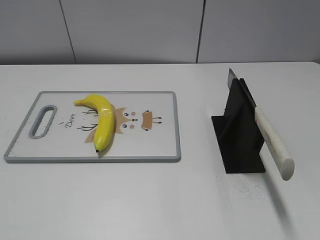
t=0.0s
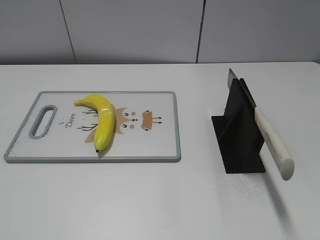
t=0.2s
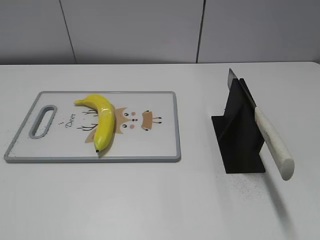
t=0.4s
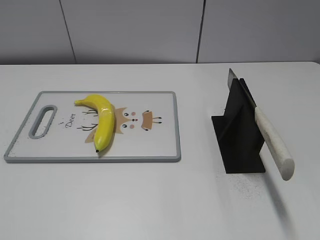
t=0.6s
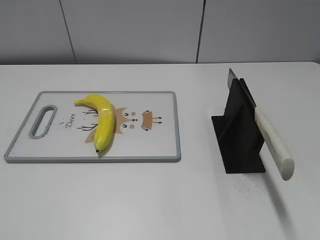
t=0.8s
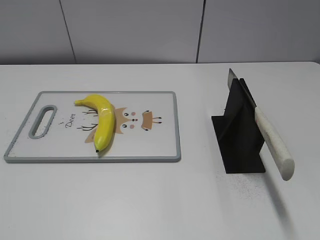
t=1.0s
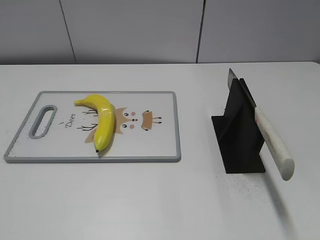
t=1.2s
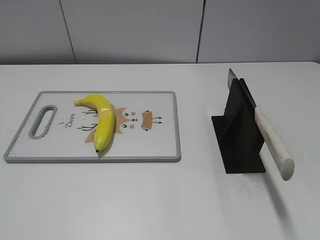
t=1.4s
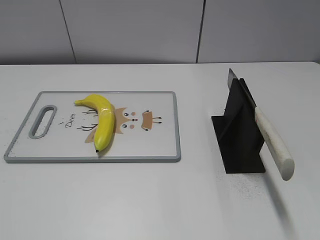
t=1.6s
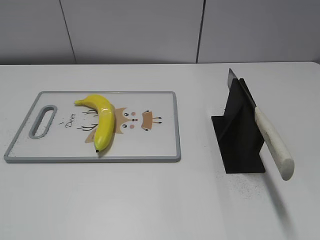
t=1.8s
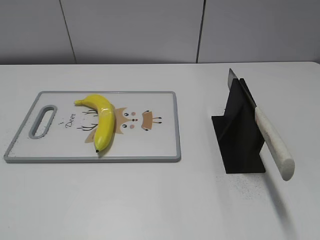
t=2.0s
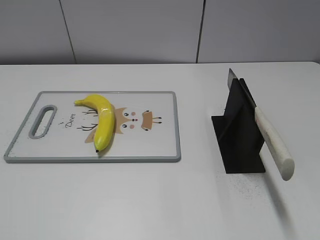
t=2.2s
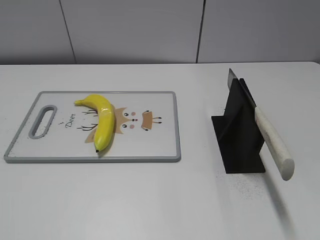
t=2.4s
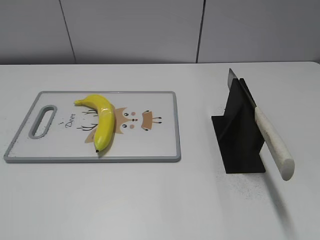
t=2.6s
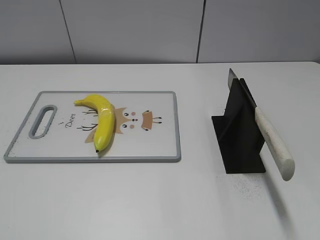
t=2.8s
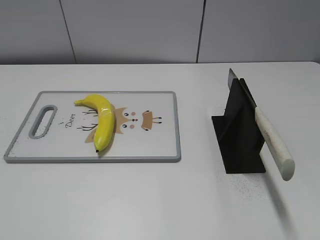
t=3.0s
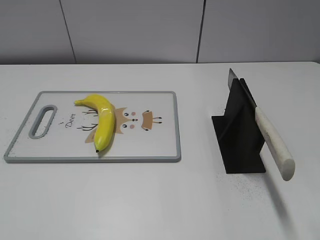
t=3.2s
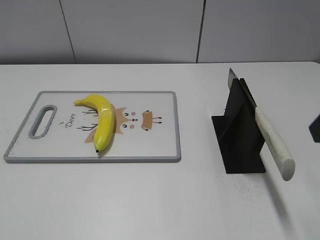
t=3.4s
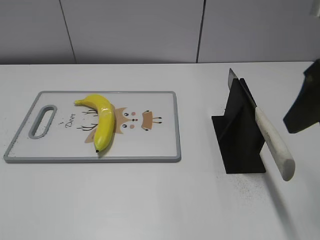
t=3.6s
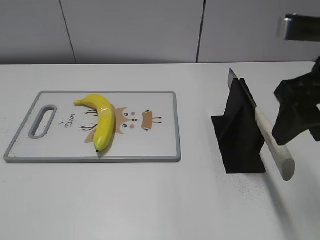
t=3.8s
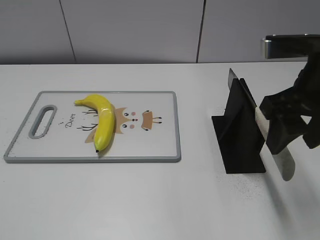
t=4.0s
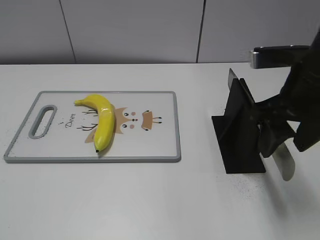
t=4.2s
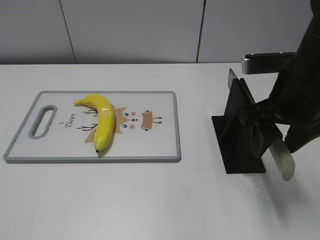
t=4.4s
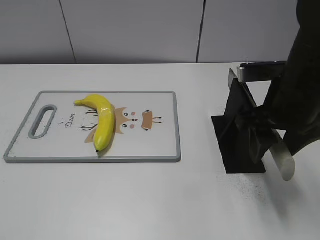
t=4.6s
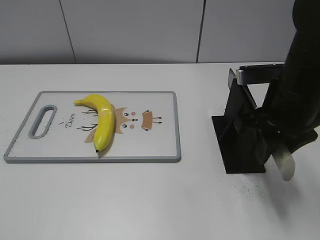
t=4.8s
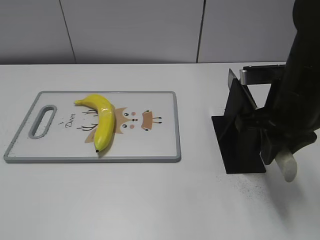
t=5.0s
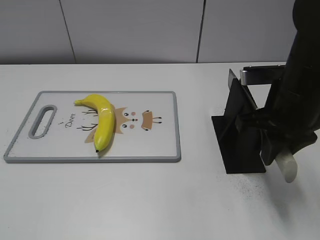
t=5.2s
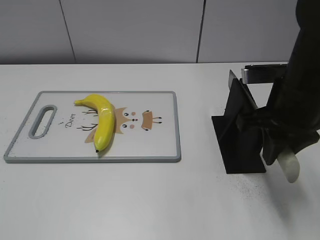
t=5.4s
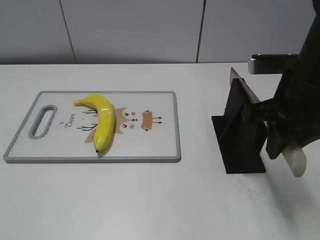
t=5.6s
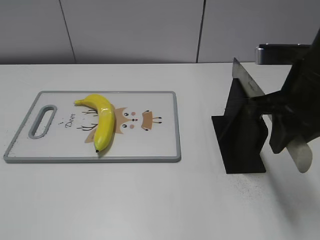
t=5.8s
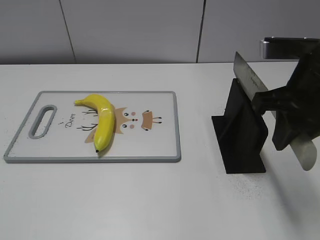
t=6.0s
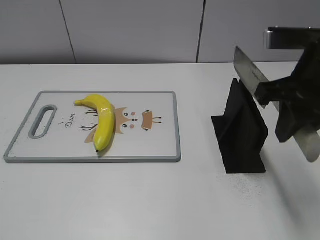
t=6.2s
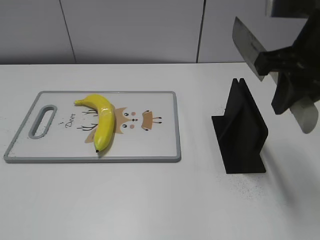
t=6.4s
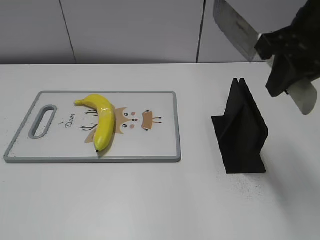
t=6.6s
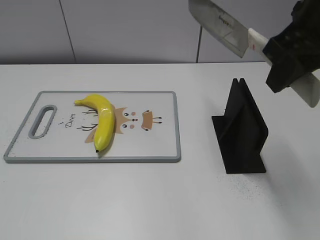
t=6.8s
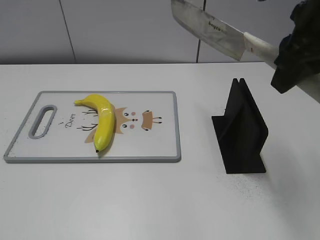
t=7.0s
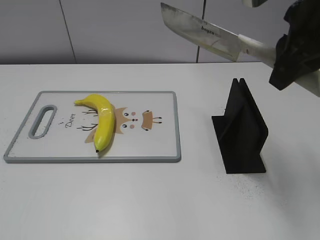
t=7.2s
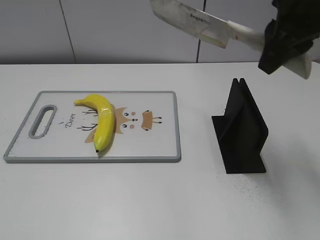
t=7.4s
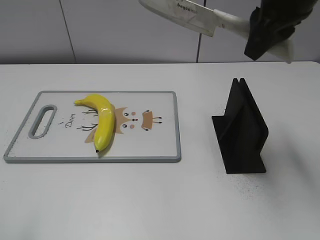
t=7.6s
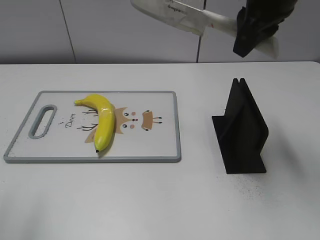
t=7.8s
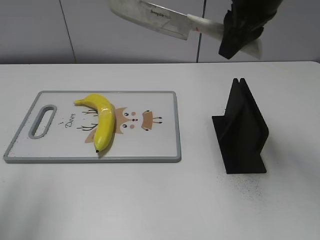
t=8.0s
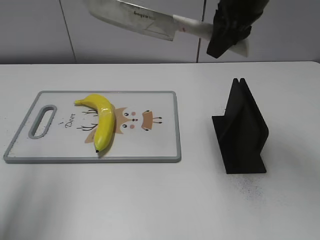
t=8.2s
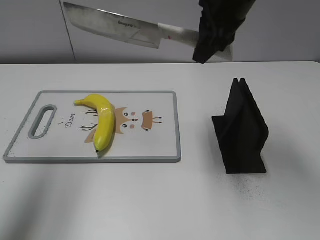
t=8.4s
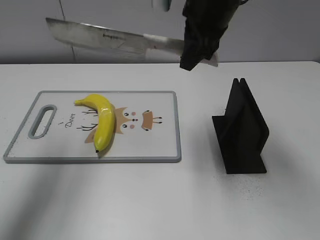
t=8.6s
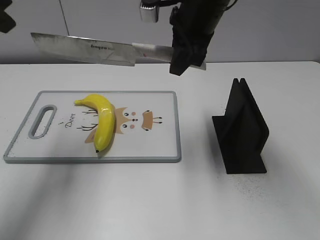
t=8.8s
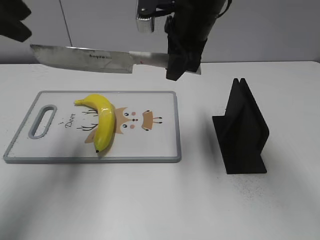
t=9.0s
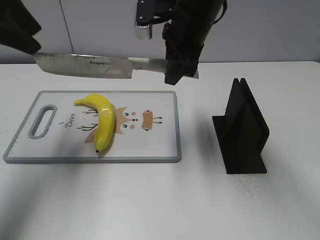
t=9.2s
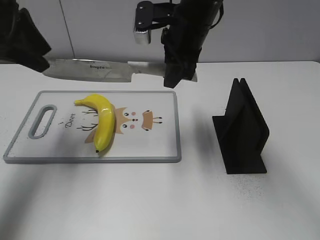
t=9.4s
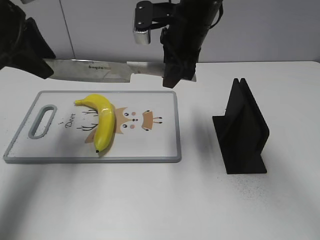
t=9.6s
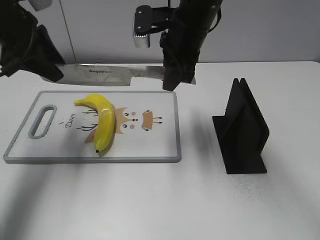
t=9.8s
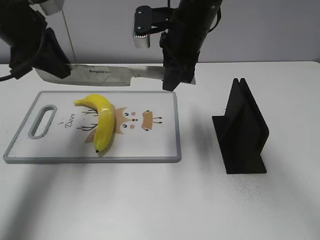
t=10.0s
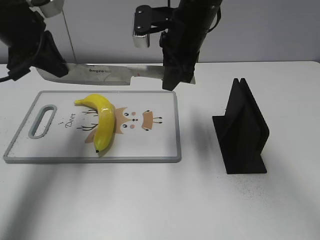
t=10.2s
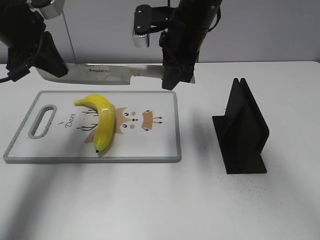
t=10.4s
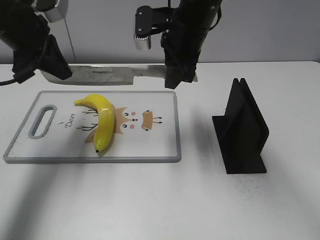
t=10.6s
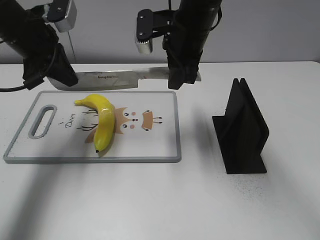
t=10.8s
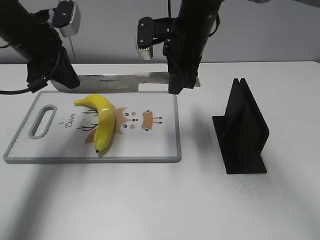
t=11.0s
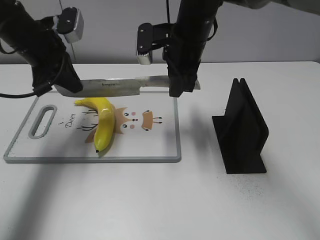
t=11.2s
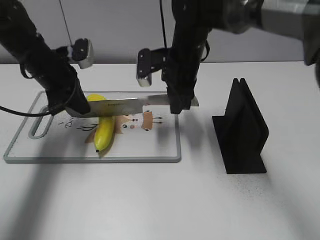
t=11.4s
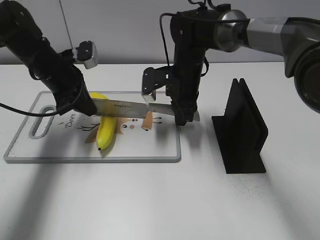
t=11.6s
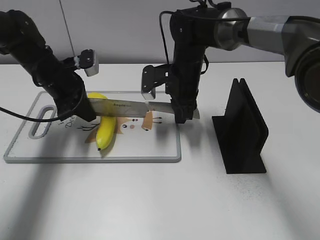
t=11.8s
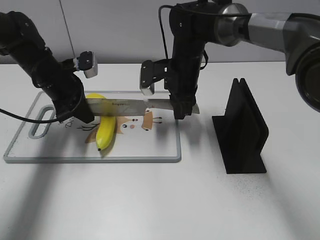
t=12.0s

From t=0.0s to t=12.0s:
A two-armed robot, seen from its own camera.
Task of the whole recording: cut plastic banana.
Step, from t=0.0s to t=5.8s: Grab the knife handle with your right hand.
From t=3.0s to t=4.4s: The right gripper travels forward, to the left and downward by about 20 cm.
From t=4.4s to t=6.0s: The right gripper closes up.
From t=6.0s to t=7.6s: The right gripper goes some 10 cm forward and upward. The left gripper goes about 10 cm upward and forward.
From t=7.6s to t=9.0s: The right gripper moves to the left, downward and forward, some 15 cm; the left gripper is displaced forward by about 25 cm.
From t=9.0s to t=10.4s: The left gripper heads downward and forward, covering approximately 10 cm, and closes its fingers.
From t=10.4s to t=12.0s: The grippers both shift downward by about 10 cm.

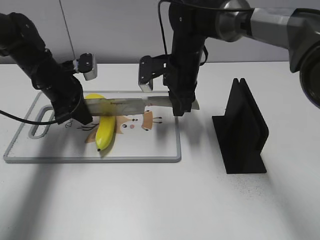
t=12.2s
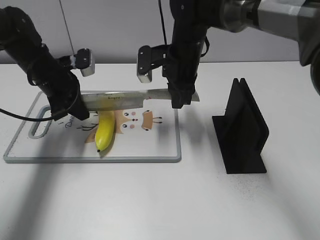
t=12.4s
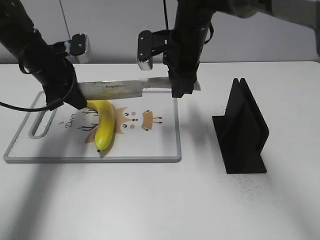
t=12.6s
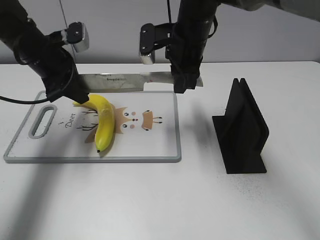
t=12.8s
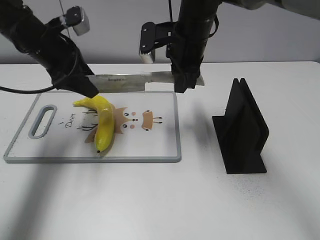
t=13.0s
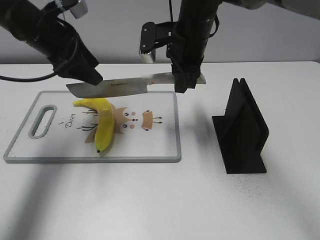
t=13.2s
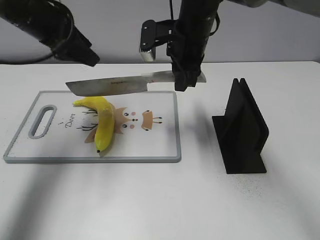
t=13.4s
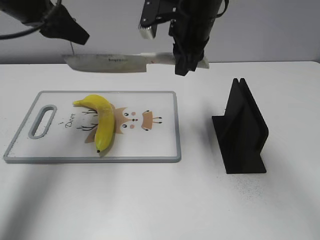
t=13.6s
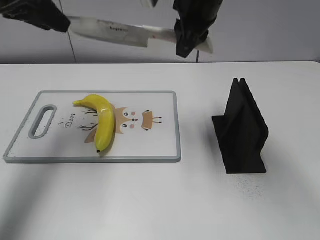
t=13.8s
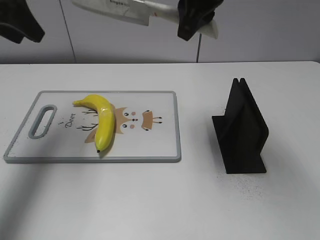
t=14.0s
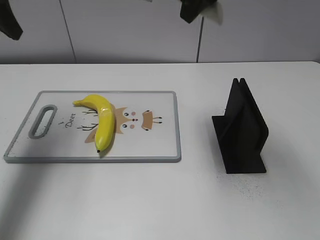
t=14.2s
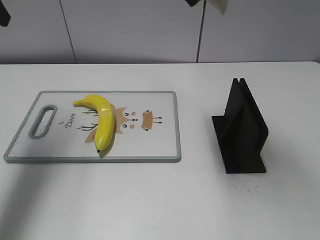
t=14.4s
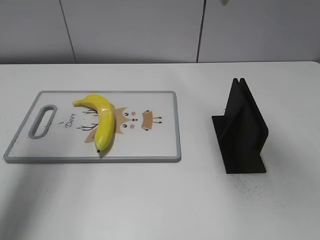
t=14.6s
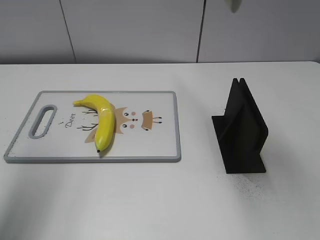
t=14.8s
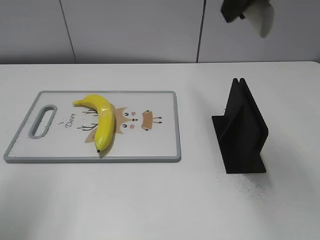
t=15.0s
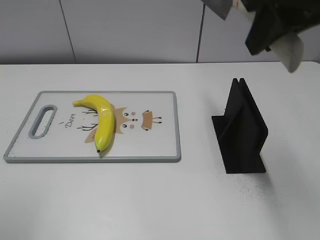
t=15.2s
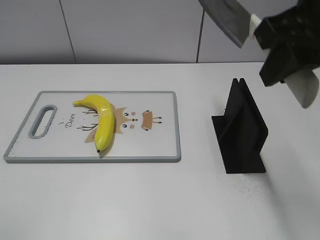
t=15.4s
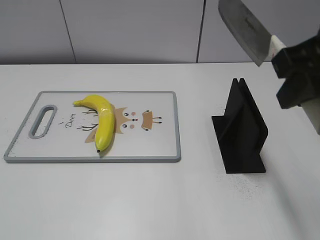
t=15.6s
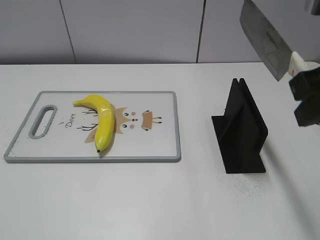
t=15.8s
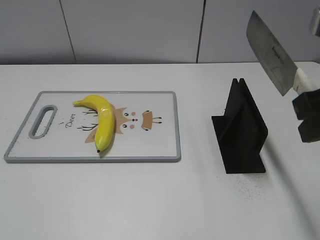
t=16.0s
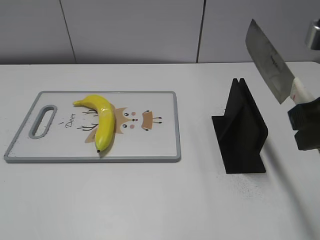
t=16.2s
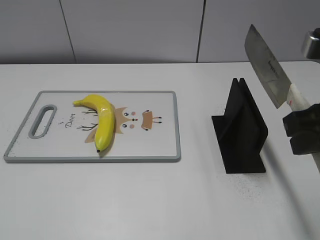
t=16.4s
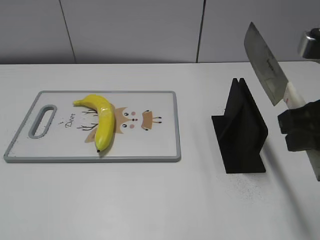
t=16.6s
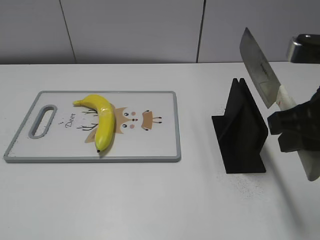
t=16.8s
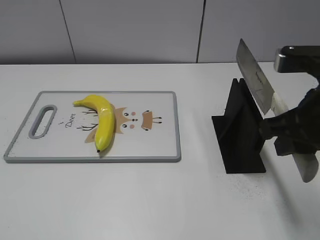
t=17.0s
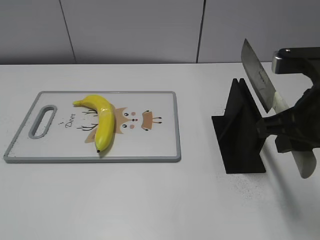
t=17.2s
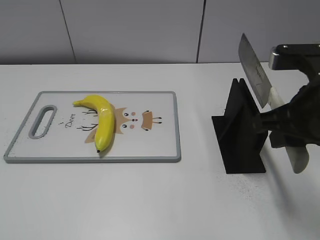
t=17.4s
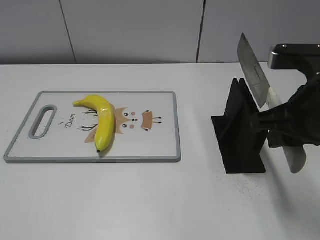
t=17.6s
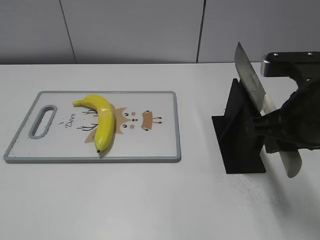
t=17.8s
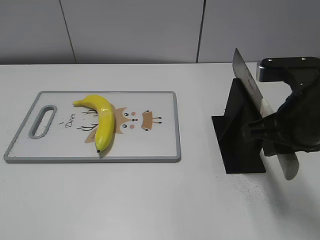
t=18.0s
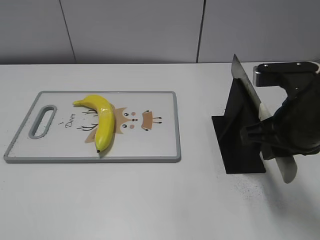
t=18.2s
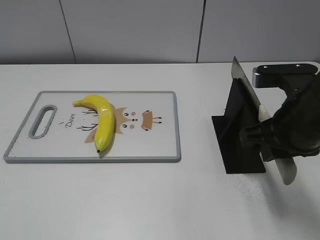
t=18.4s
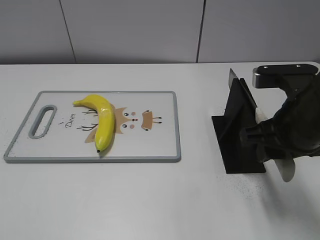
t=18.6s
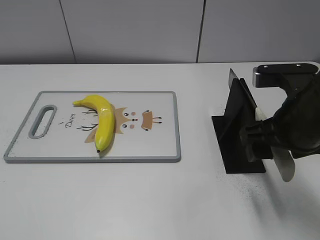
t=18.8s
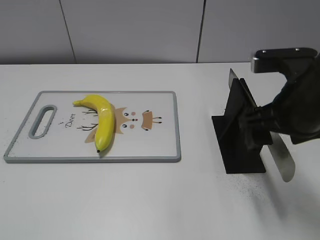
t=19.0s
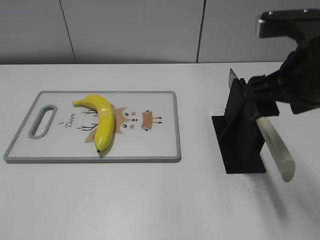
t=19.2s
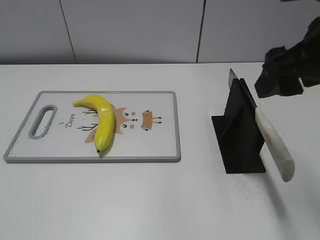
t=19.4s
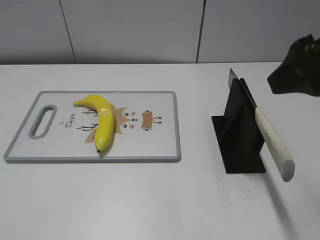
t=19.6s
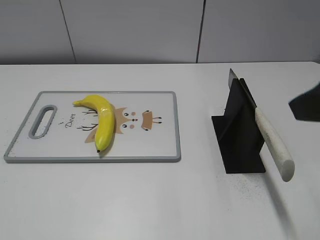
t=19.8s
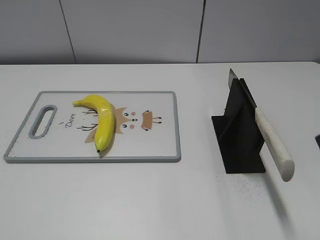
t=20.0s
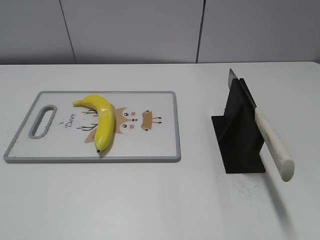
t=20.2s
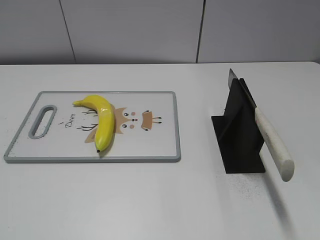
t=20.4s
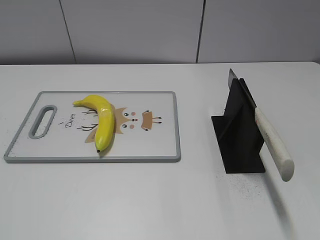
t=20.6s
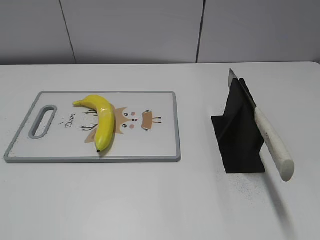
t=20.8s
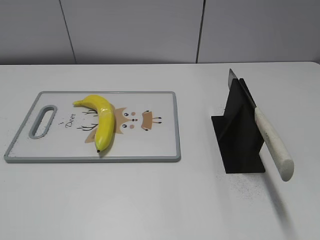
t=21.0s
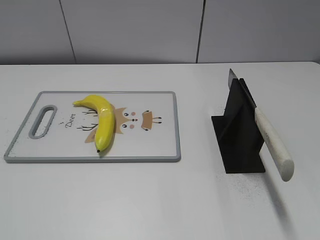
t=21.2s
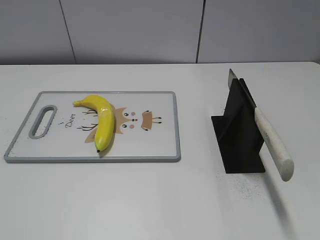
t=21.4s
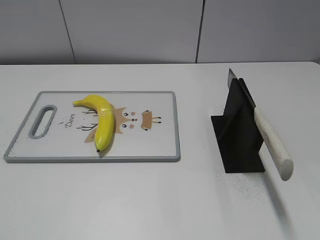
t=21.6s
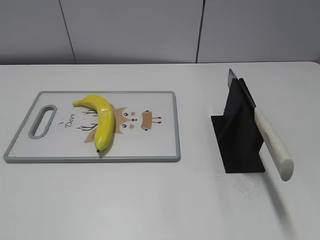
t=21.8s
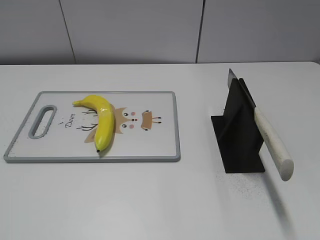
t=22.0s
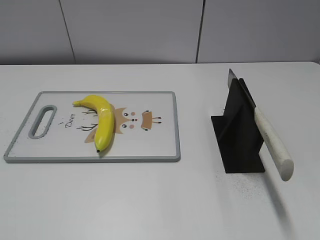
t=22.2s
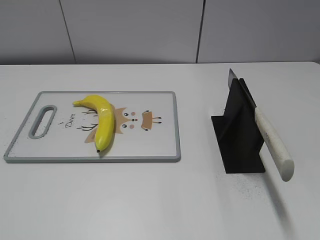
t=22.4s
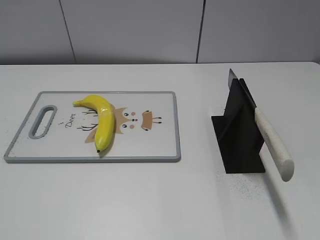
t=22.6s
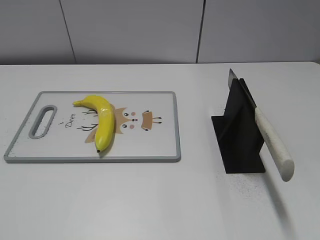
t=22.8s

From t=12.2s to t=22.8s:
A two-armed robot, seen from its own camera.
Task of the whole recording: cut plastic banana.
Step, from t=13.0s to t=14.4s: Cut the banana with your right hand.
Step, from t=14.6s to t=15.8s: Secure the blade with your left hand.
Step, from t=16.0s to t=22.8s: Place the knife on the storage rack with your right hand.
From t=12.2s to t=13.8s: The grippers both shift upward by some 15 cm. The left gripper opens its fingers.
From t=13.8s to t=15.2s: The right gripper goes approximately 20 cm backward, to the right and upward. The left gripper moves backward, about 25 cm.
From t=15.2s to t=16.8s: The right gripper goes about 15 cm downward and backward.
From t=16.8s to t=18.2s: The right gripper heads downward, covering roughly 5 cm.
From t=18.2s to t=19.8s: The right gripper travels upward and backward by roughly 15 cm, and opens its fingers.
From t=19.8s to t=21.2s: The right gripper travels backward, to the right and downward by about 20 cm.
